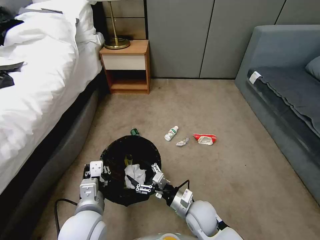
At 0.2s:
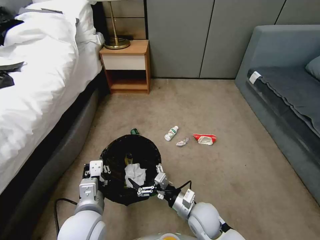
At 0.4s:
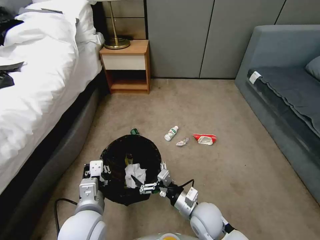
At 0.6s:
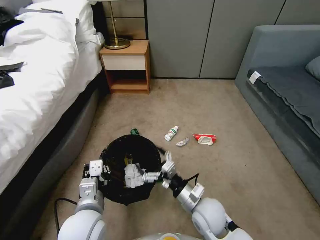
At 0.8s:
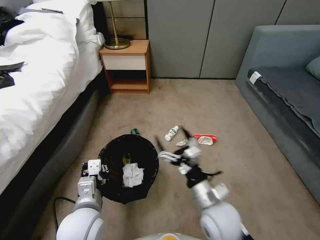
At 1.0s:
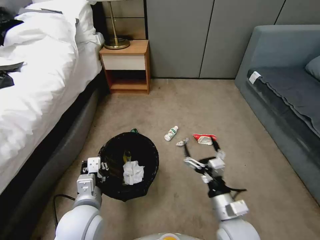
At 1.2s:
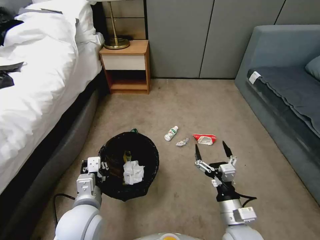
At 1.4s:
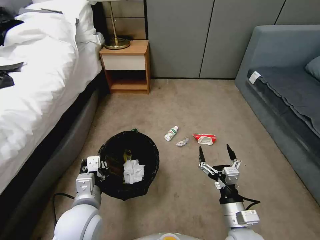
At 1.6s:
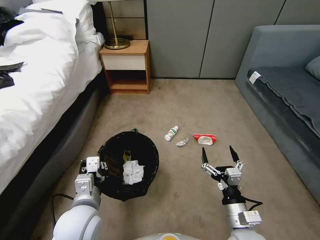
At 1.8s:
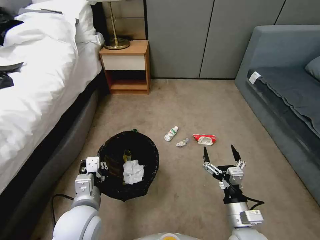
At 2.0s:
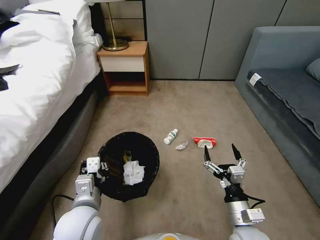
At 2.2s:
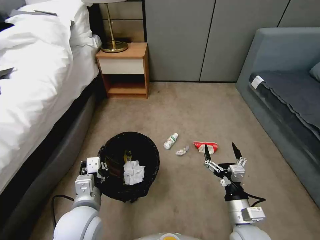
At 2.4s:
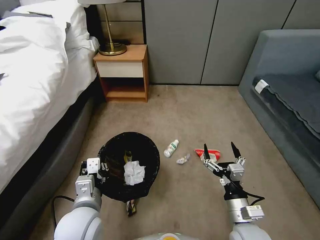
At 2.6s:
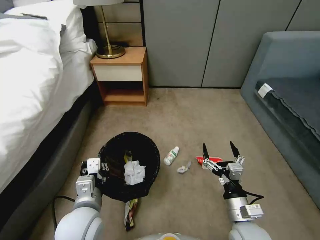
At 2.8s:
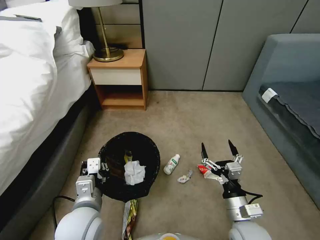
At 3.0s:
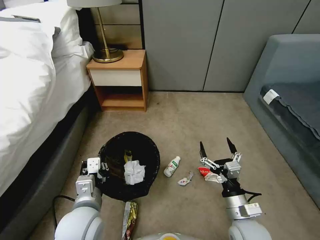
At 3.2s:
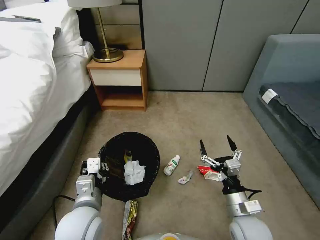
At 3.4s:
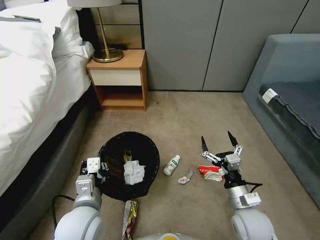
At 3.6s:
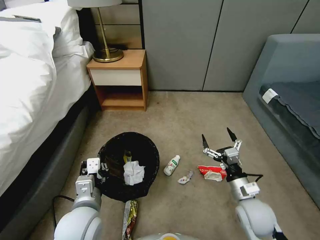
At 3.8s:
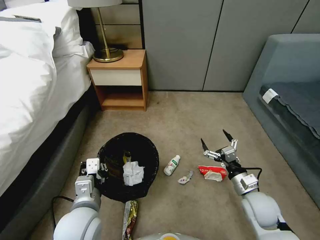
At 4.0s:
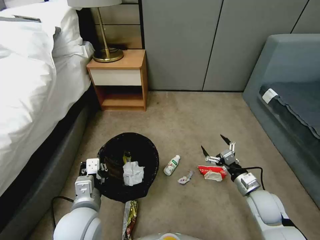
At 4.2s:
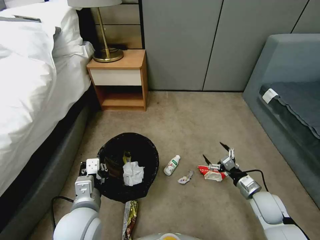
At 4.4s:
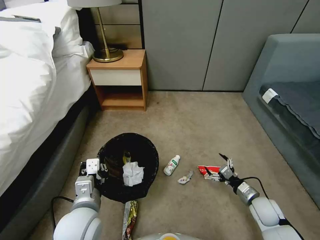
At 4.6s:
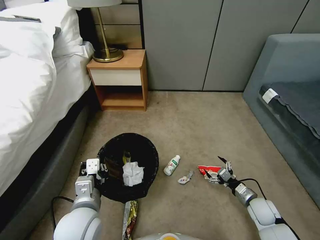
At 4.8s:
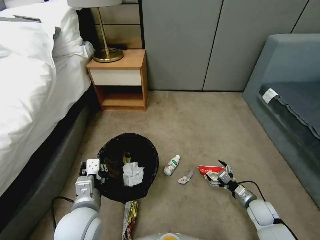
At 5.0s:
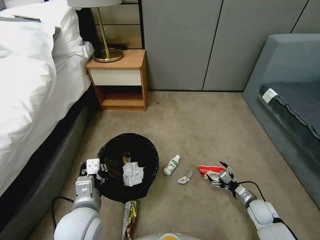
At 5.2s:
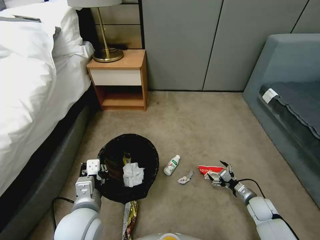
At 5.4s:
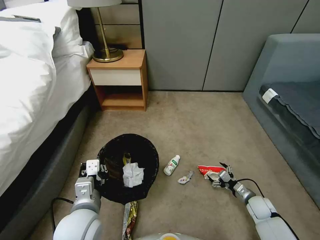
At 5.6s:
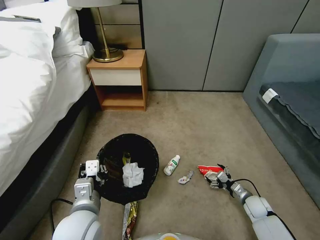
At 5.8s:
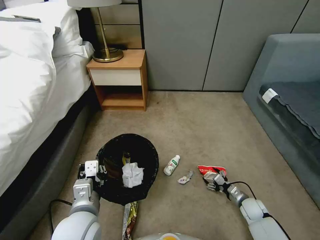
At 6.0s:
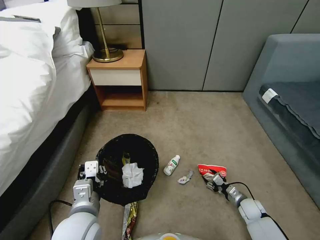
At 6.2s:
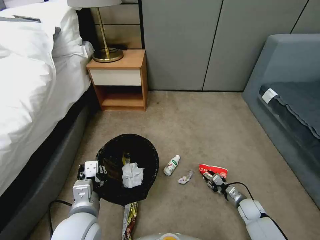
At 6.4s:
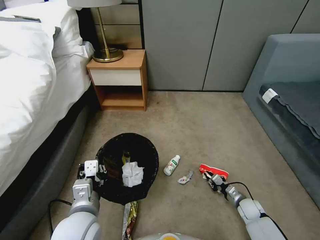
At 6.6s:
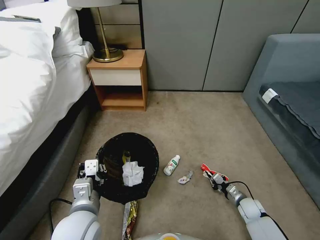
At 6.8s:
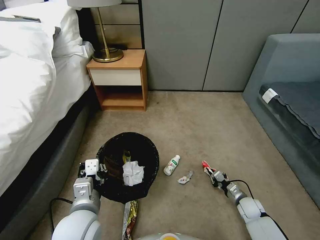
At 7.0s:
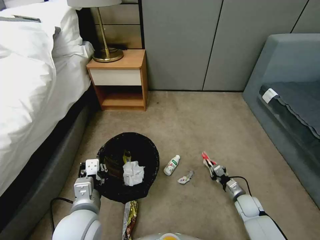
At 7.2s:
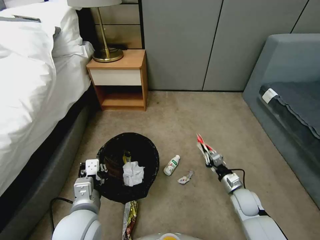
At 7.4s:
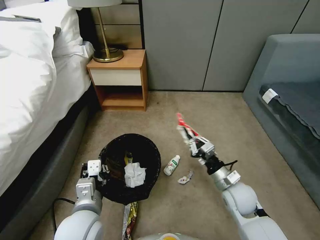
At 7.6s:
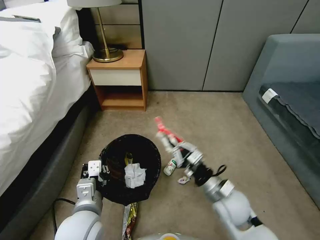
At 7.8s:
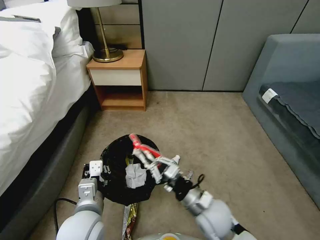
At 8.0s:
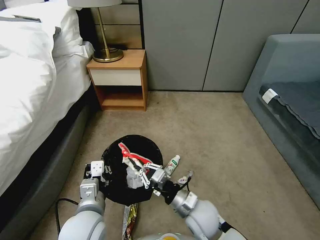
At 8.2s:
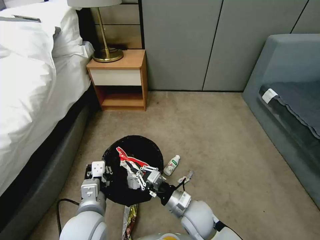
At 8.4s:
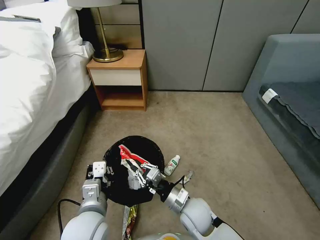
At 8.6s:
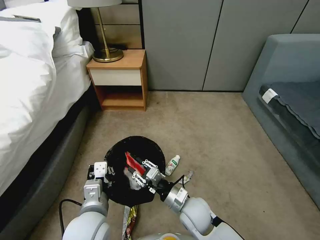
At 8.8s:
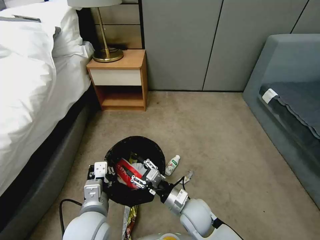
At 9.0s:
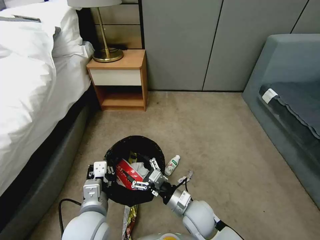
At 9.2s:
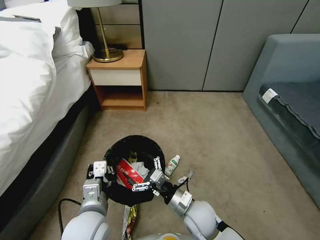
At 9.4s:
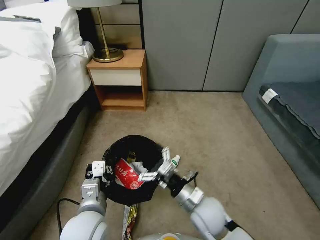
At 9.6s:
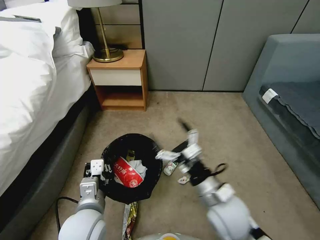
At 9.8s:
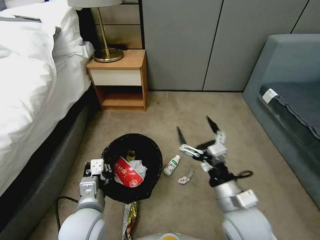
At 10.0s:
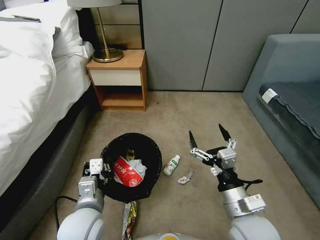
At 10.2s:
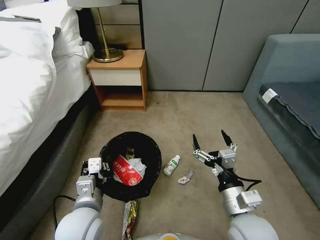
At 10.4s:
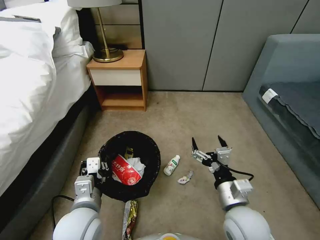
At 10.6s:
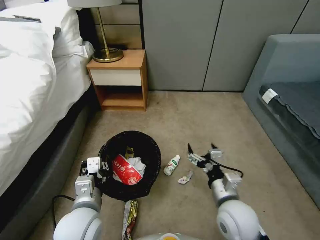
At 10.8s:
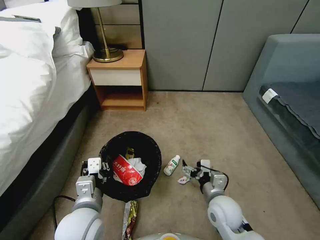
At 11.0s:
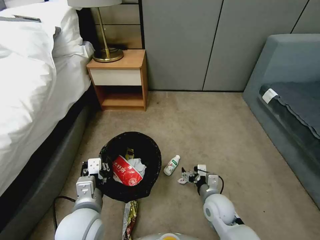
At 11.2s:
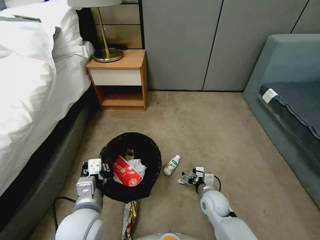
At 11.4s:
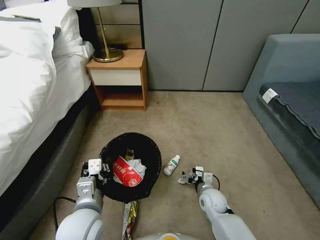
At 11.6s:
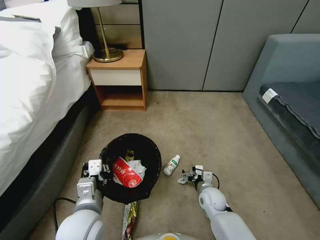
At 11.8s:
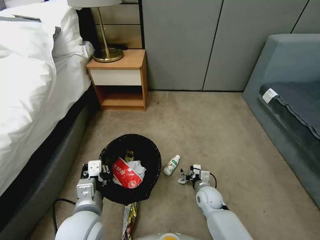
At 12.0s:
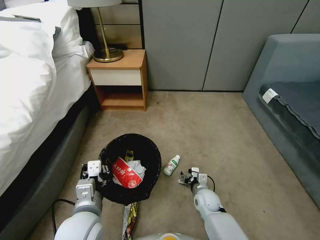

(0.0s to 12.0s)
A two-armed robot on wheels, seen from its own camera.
Task of the whole recording: Pick up the trash bin, then pick up the garbage from the floor and place it into the trash bin.
0.0s - 1.6s: The right gripper travels to the right, backward and upward by about 15 cm.
3.0s - 4.4s: The right gripper travels to the right, downward and forward by approximately 20 cm.
4.4s - 6.0s: The right gripper is displaced downward by approximately 10 cm, and closes up.
6.0s - 7.6s: The right gripper shifts about 30 cm upward and to the left, and closes up.
7.6s - 9.0s: The right gripper heads to the left and downward, covering approximately 10 cm, and opens its fingers.
9.0s - 10.4s: The right gripper travels upward and to the right by some 15 cm.
10.4s - 12.0s: The right gripper is displaced downward and forward by roughly 25 cm.

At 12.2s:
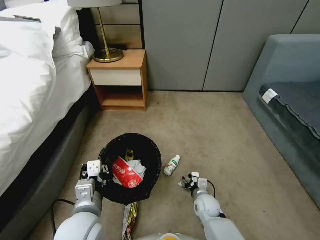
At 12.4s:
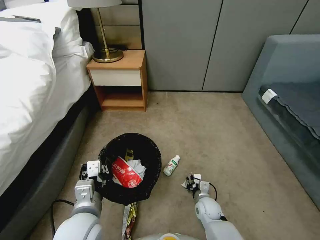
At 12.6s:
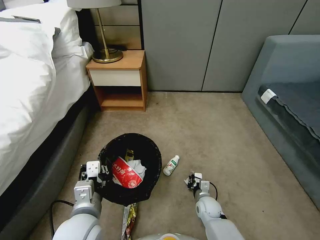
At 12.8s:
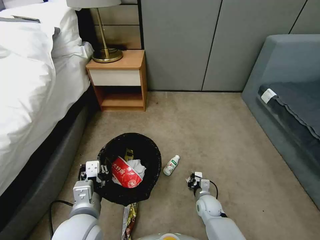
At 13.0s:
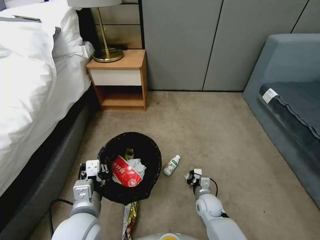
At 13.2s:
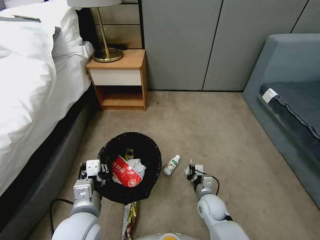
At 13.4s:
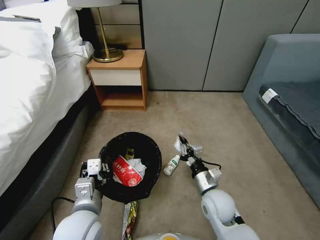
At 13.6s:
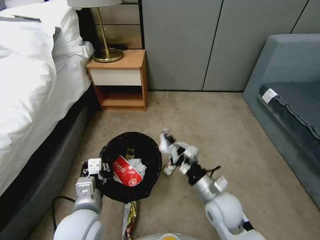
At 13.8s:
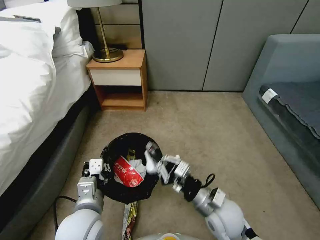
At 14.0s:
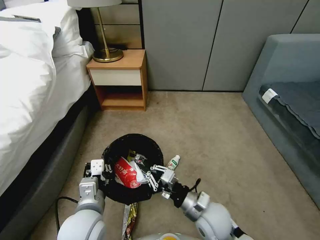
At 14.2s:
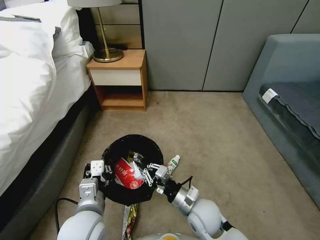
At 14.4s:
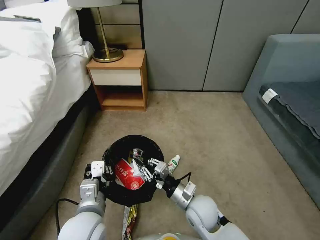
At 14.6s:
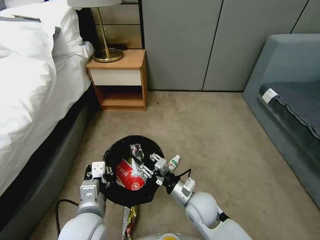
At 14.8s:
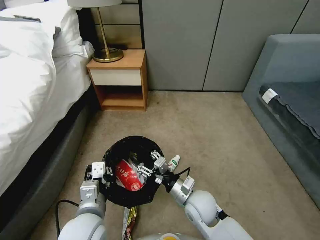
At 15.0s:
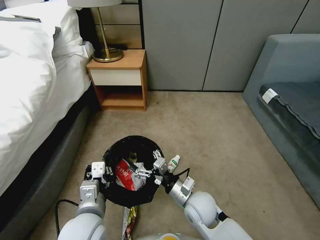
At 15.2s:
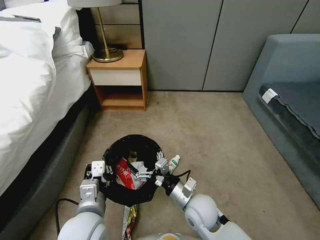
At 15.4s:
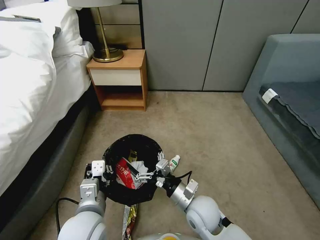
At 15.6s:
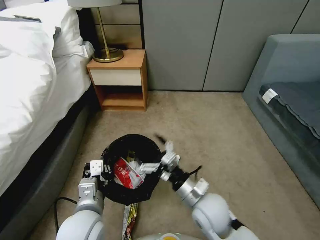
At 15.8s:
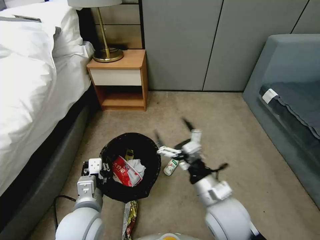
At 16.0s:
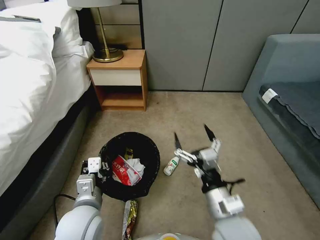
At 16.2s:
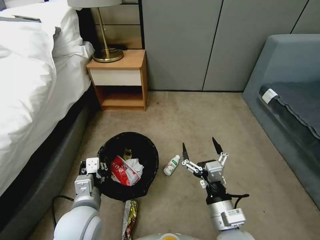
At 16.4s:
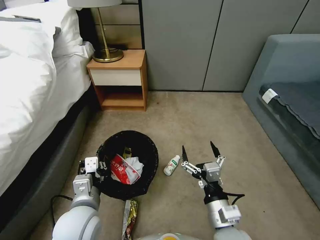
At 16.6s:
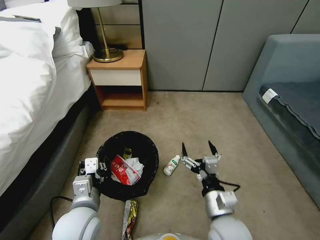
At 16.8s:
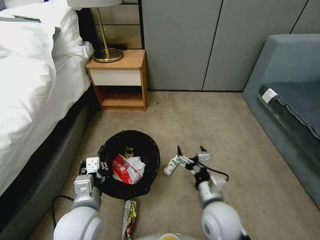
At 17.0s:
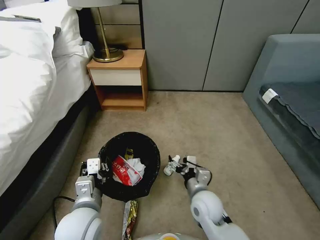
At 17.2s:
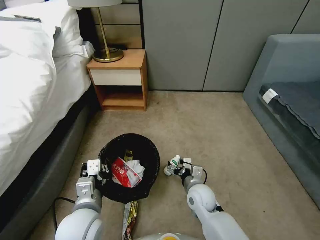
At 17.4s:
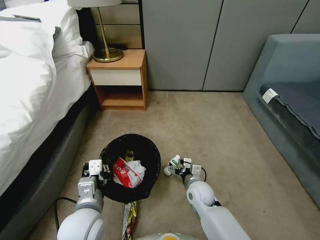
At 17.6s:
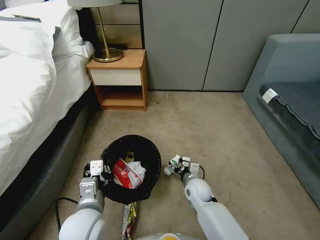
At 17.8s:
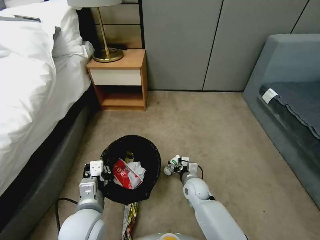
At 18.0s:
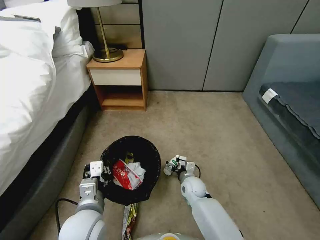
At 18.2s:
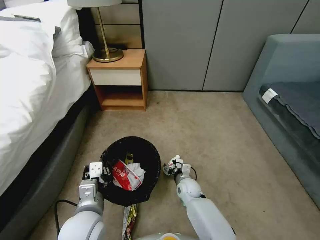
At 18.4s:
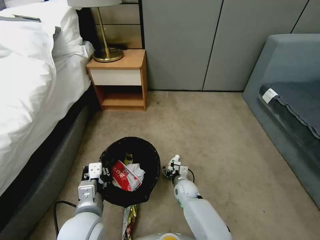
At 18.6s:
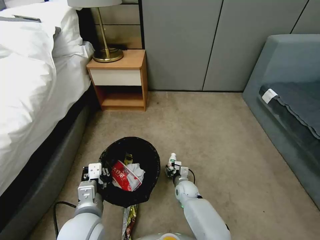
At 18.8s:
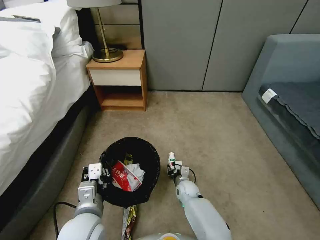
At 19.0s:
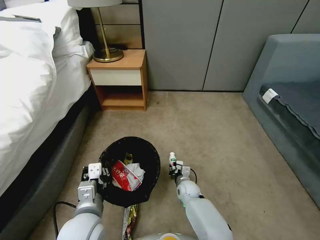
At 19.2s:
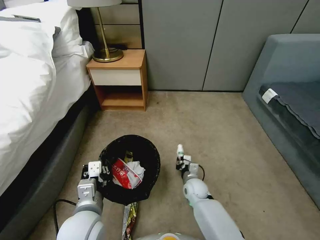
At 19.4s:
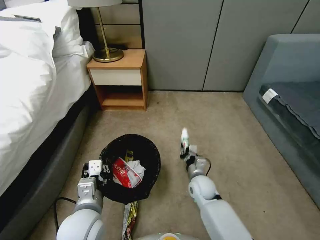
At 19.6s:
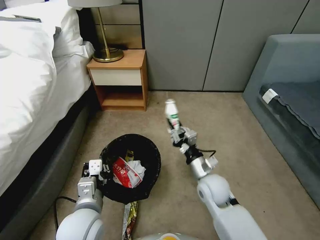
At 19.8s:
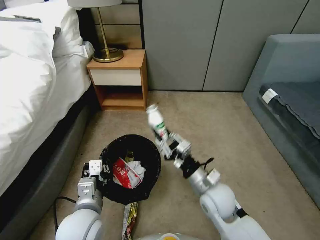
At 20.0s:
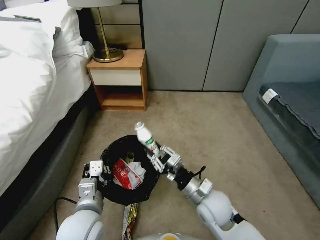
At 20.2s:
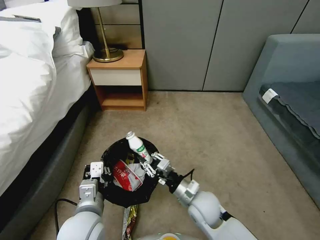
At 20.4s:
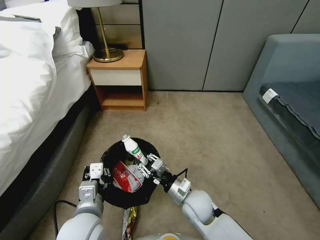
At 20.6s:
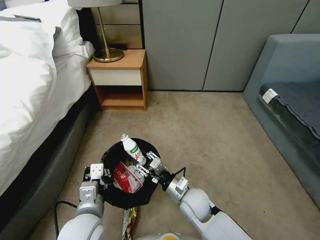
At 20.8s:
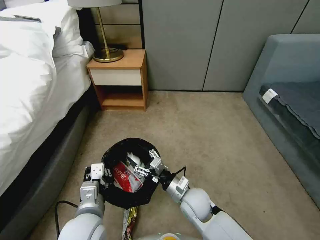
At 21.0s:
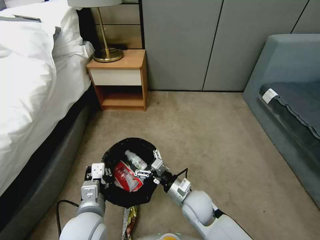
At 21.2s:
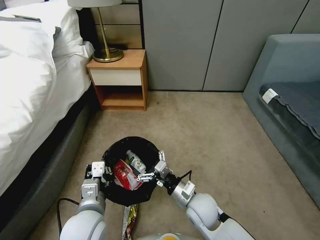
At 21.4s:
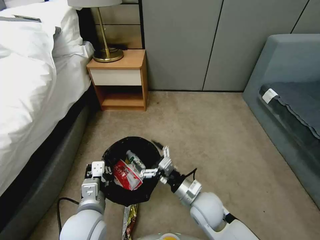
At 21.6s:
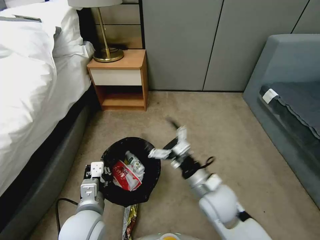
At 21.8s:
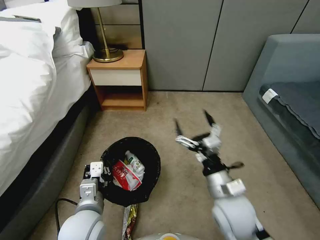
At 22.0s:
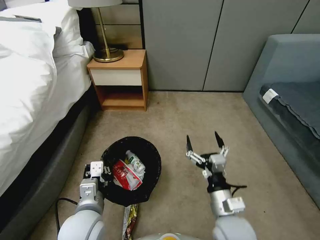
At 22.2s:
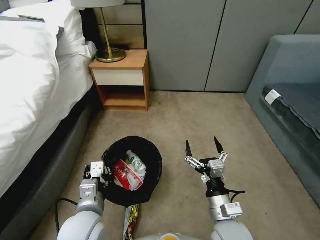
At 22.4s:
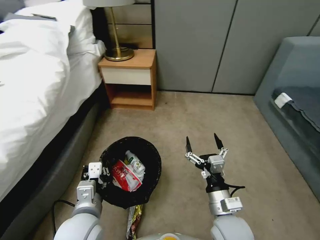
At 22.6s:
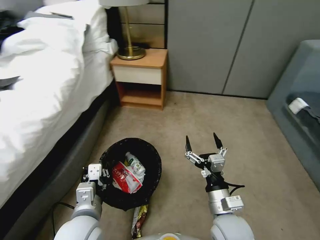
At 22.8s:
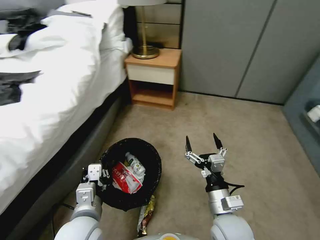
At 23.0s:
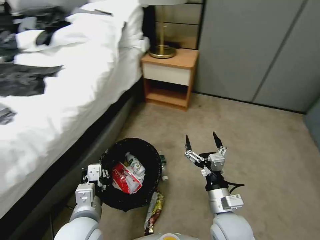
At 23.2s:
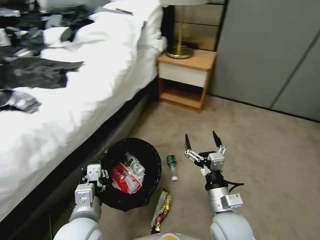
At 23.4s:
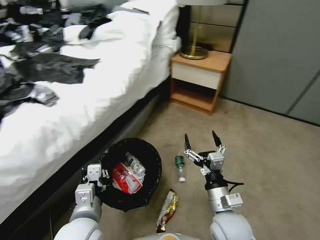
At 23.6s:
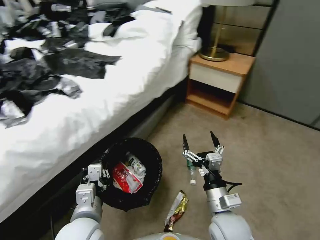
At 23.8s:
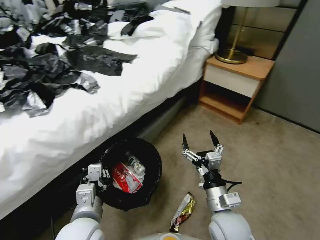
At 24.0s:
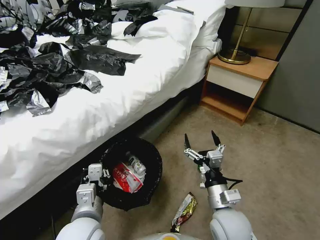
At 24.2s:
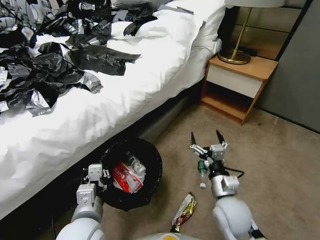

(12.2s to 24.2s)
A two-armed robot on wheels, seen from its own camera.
Task of the whole recording: Pick up the trash bin, then pick up the garbage from the floor and place it into the trash bin.
12.2s - 13.8s: The right gripper shifts about 20 cm upward, and closes its fingers.
13.8s - 15.2s: The right gripper heads to the left, covering roughly 5 cm, and opens its fingers.
15.2s - 16.6s: The right gripper is displaced backward and upward by some 10 cm.
16.6s - 18.2s: The right gripper heads downward and forward, covering some 25 cm.
18.2s - 19.8s: The right gripper heads upward and backward, covering approximately 20 cm, and closes its fingers.
19.8s - 21.2s: The right gripper travels downward by about 5 cm, and opens its fingers.
21.2s - 22.6s: The right gripper moves backward, upward and to the right, approximately 10 cm.
